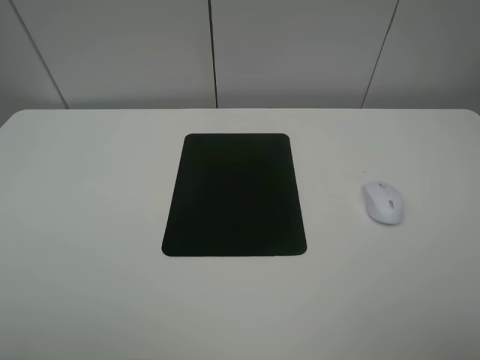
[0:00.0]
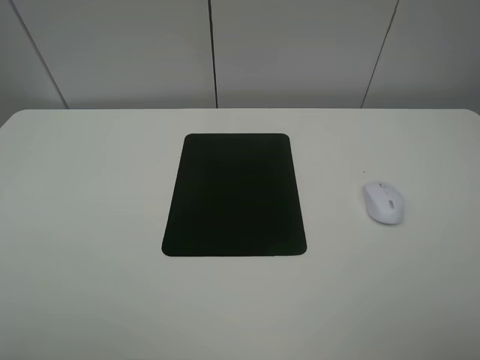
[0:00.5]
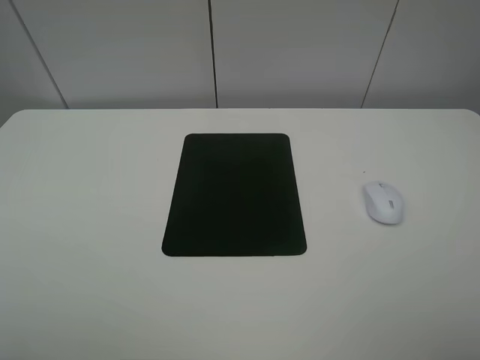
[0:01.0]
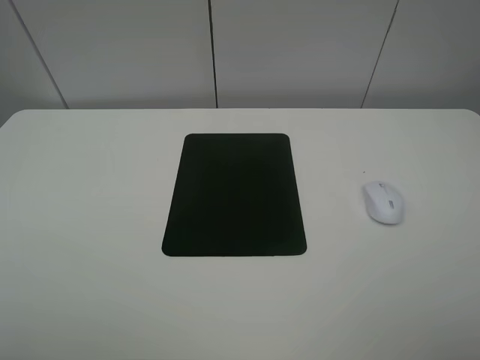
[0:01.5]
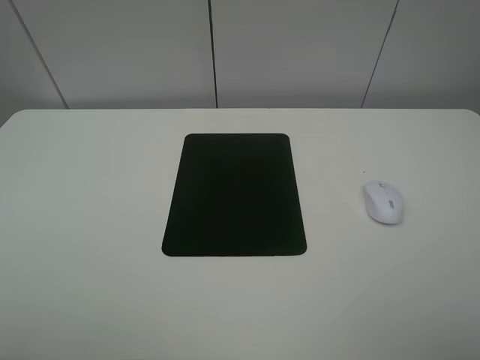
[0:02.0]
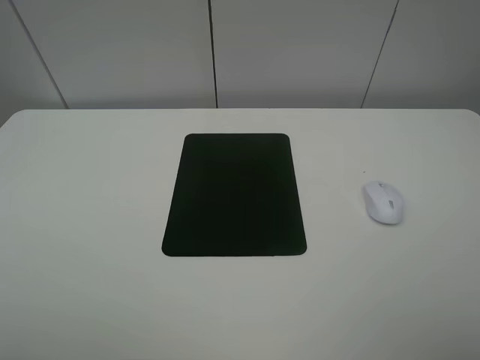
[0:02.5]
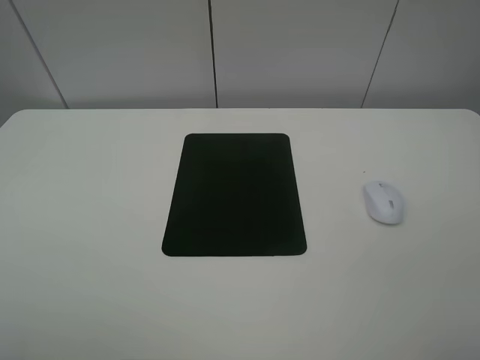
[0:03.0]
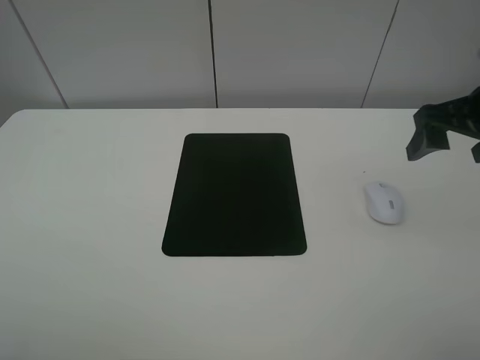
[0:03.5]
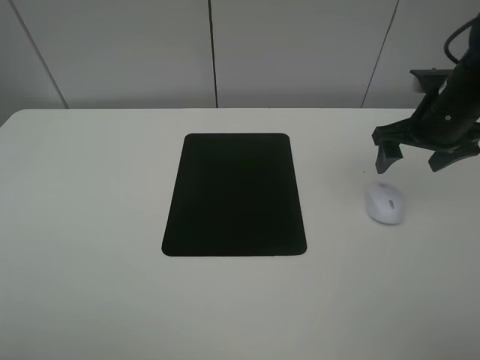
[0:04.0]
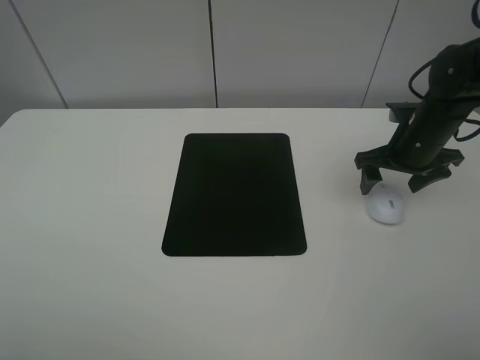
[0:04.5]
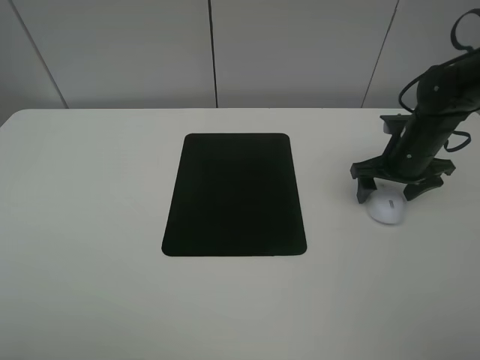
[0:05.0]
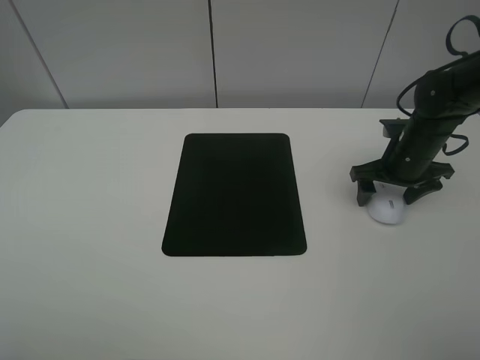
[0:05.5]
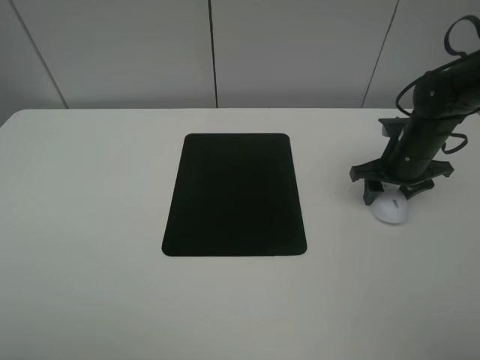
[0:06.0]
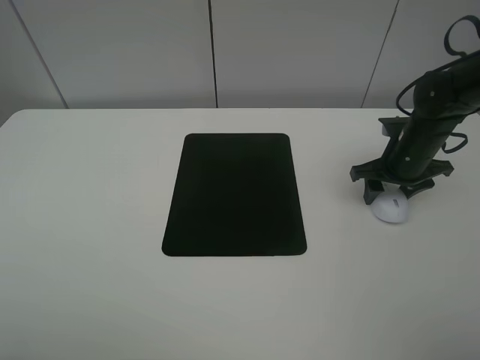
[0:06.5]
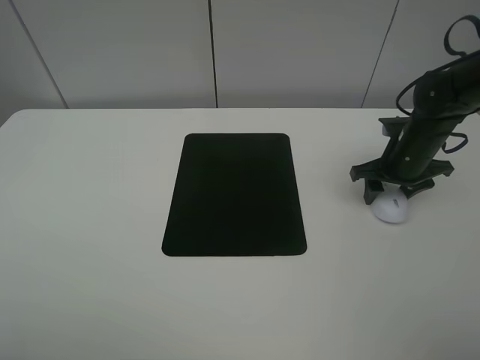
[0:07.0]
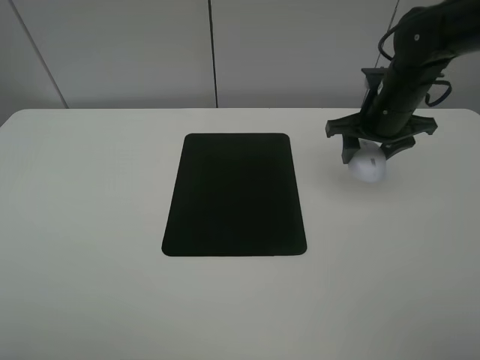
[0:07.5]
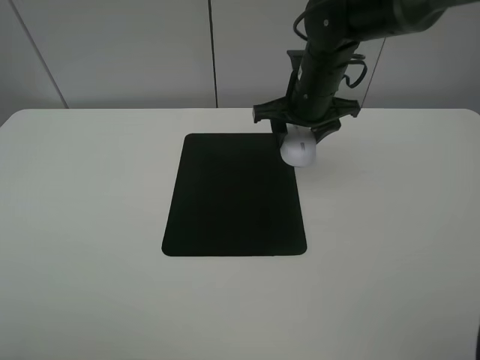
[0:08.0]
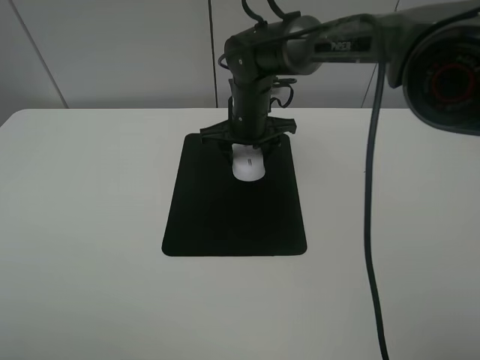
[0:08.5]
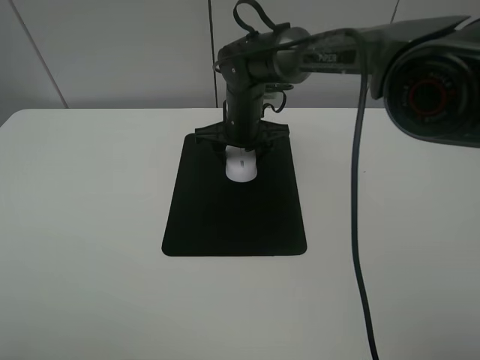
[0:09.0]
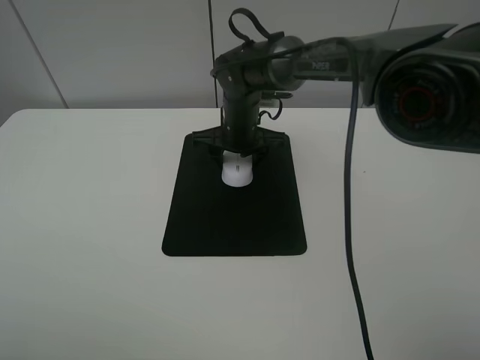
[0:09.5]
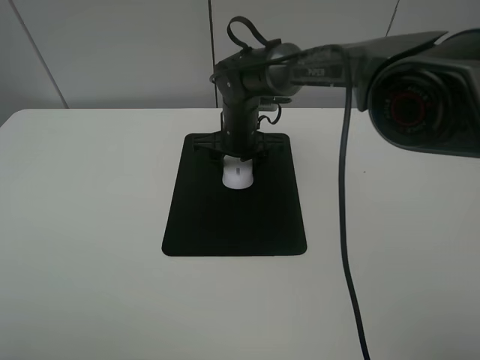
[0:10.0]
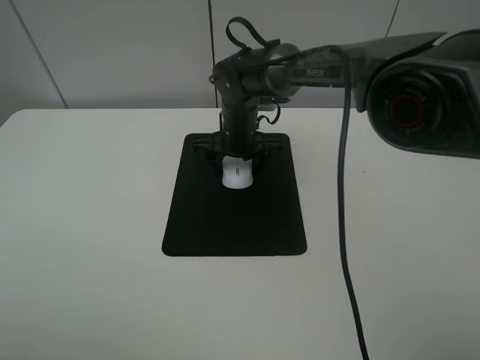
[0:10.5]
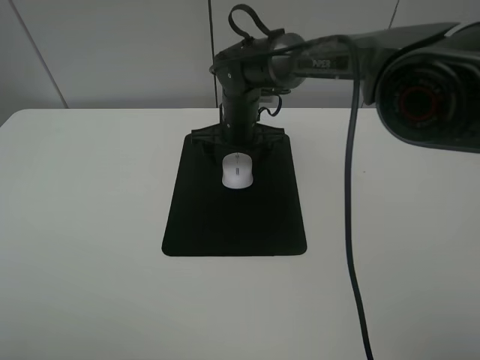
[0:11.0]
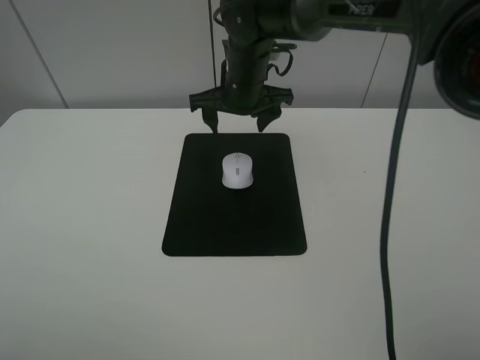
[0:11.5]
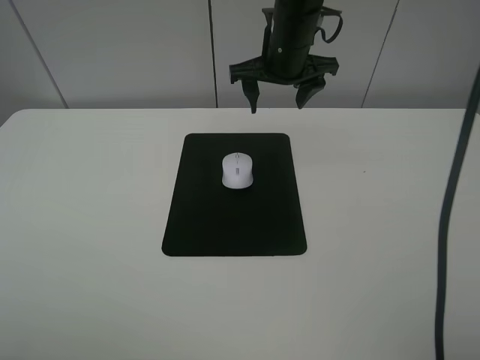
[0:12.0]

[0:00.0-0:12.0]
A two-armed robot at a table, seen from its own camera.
Step, 0:00.0 to 0:06.5: Grasp the mouse with the right gripper.
Step, 0:07.0 to 0:10.5: Place the mouse on the mouse mat with the right gripper.
0:00.0 to 0:02.0: The two grippers keep their place.
0:02.0 to 0:04.0: The right gripper heads forward, covering approximately 35 cm, and opens its fingers.
0:04.0 to 0:06.0: The right gripper shifts about 10 cm downward, and closes up.
0:06.0 to 0:08.0: The right gripper is displaced to the left and upward by some 20 cm.
0:08.0 to 0:10.0: The right gripper is displaced to the left and downward by roughly 15 cm.
0:10.0 to 0:12.0: The right gripper is displaced upward and to the right by approximately 15 cm, and opens up.

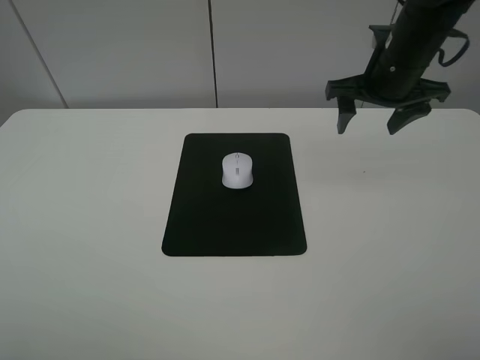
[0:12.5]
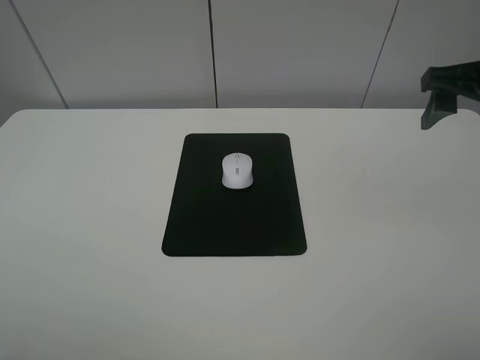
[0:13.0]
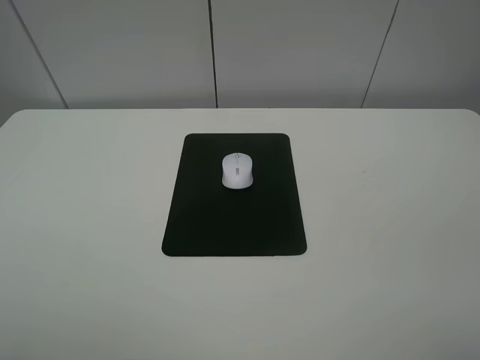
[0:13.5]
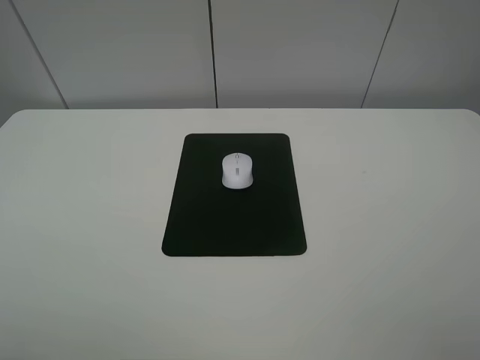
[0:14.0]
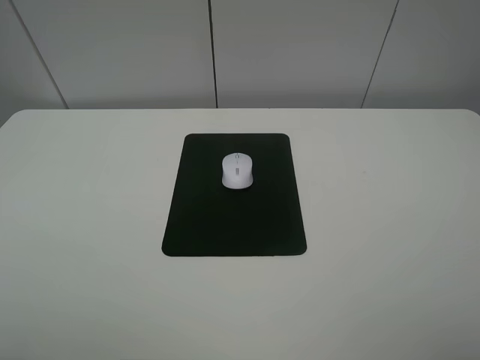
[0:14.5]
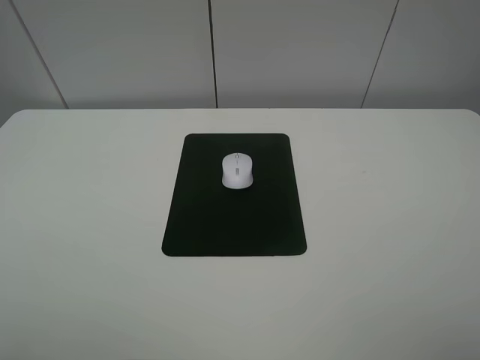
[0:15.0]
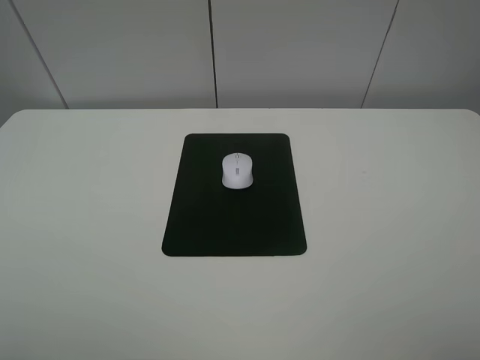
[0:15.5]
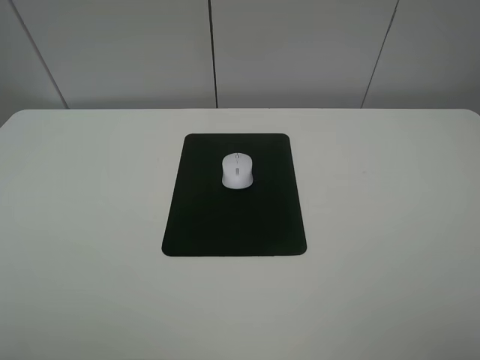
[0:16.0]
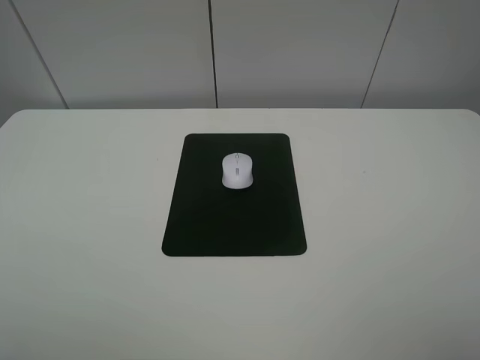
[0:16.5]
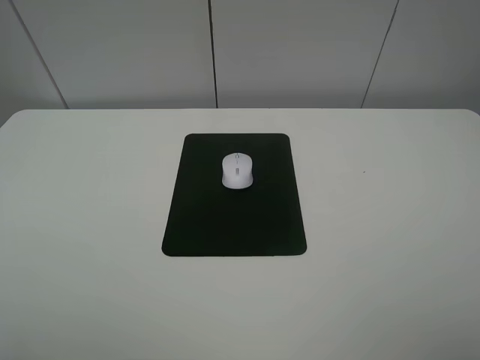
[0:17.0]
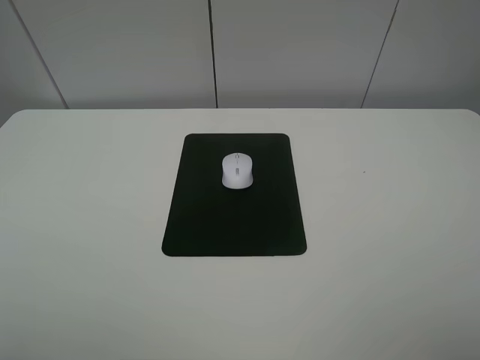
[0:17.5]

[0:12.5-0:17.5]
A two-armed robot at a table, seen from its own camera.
0:12.5 to 0:15.0: The right gripper shifts about 35 cm backward.

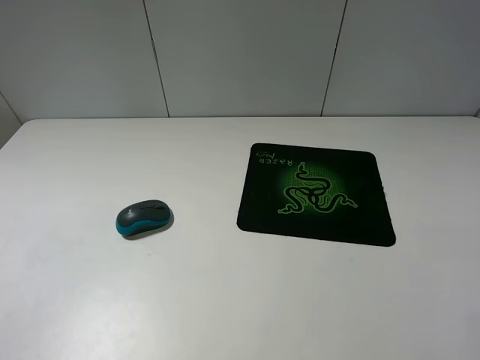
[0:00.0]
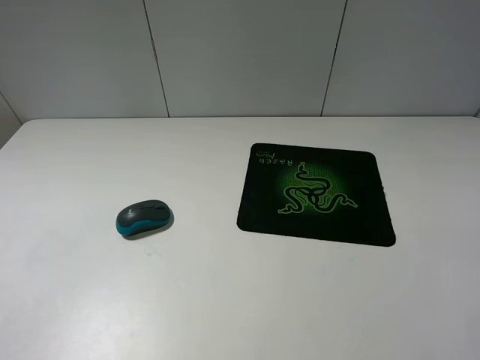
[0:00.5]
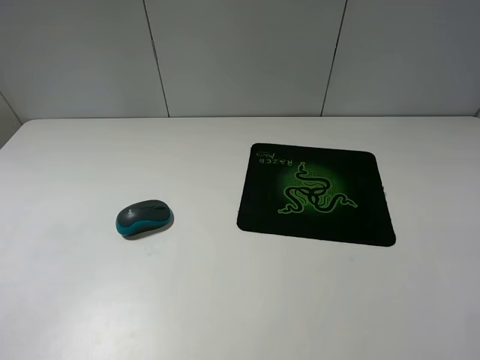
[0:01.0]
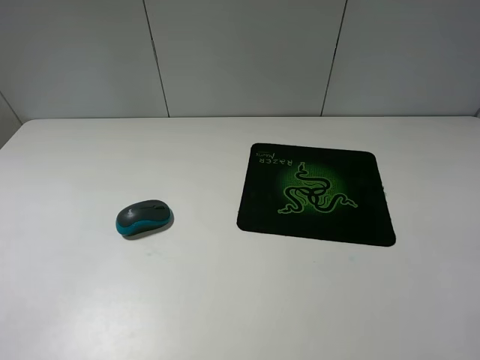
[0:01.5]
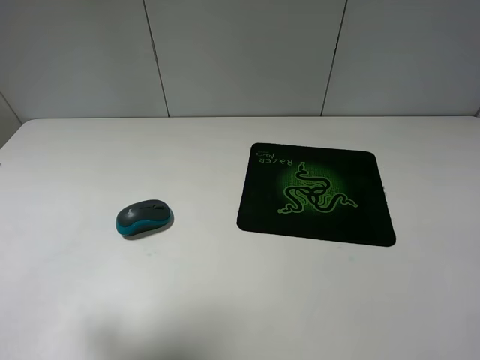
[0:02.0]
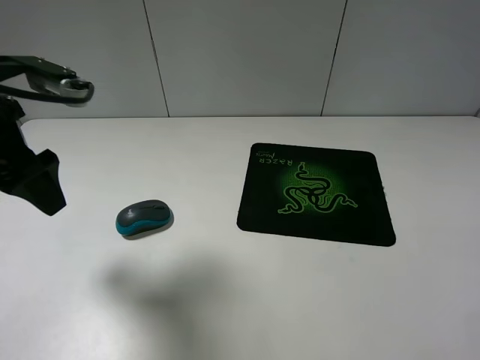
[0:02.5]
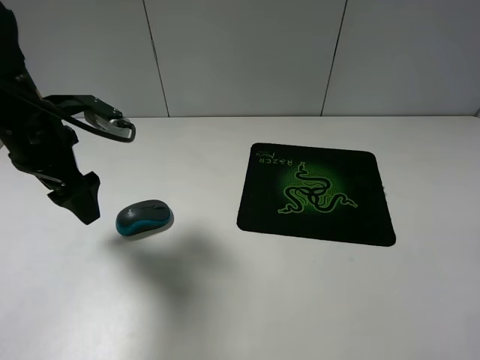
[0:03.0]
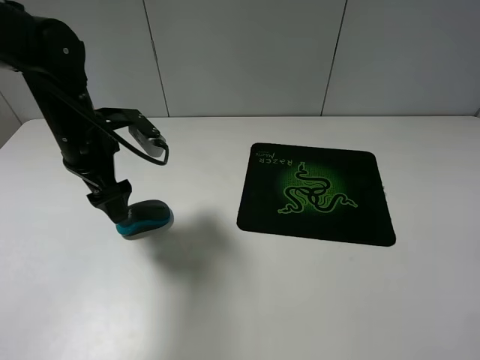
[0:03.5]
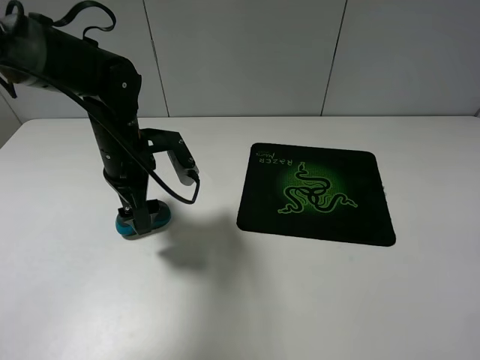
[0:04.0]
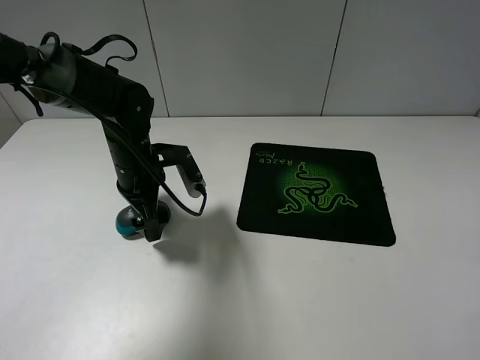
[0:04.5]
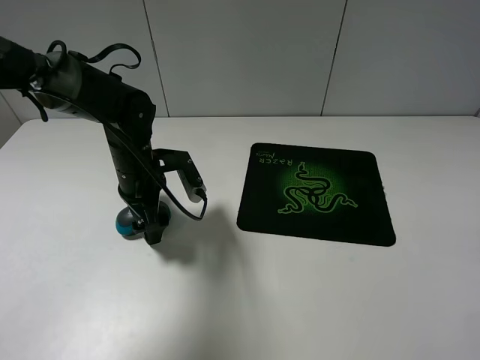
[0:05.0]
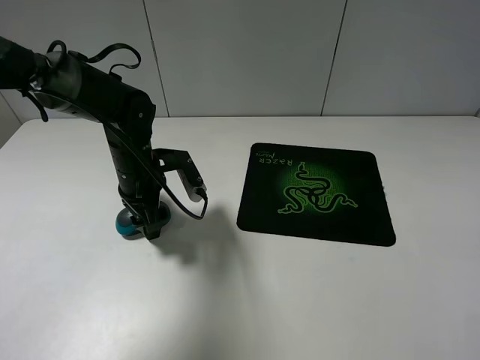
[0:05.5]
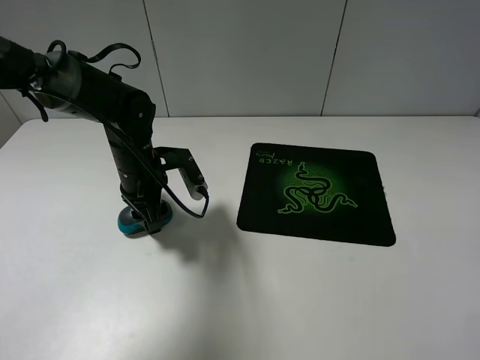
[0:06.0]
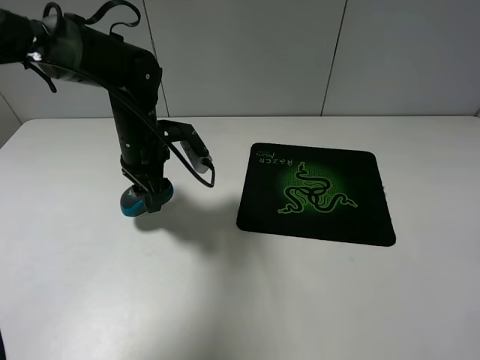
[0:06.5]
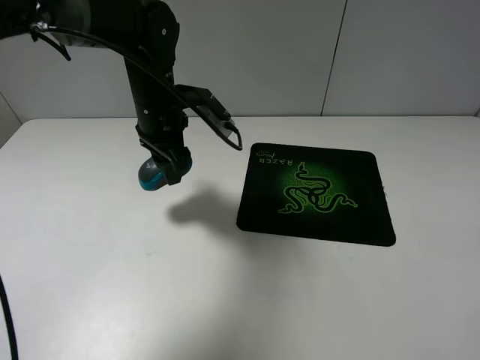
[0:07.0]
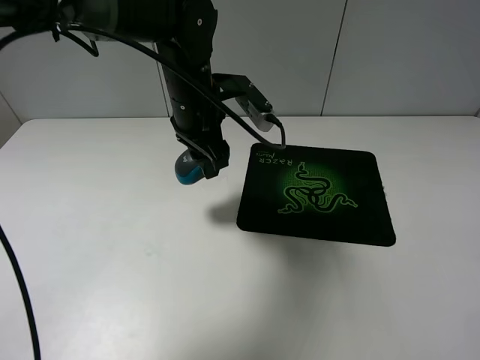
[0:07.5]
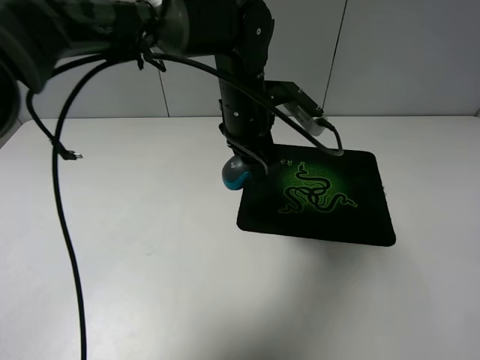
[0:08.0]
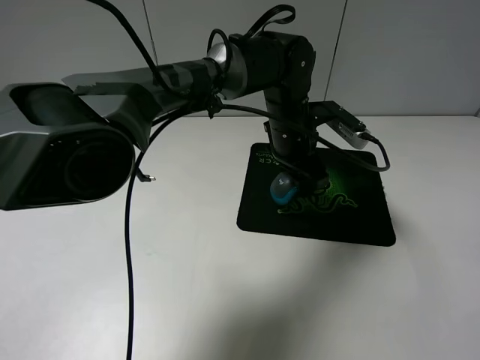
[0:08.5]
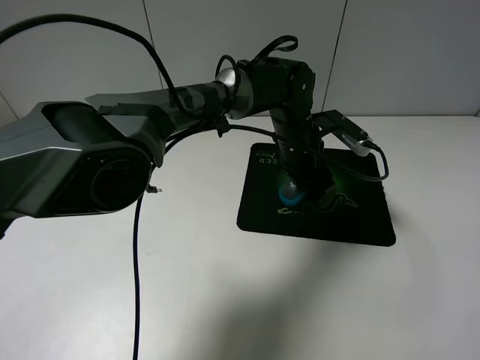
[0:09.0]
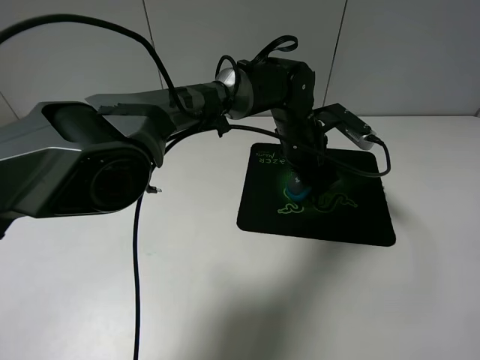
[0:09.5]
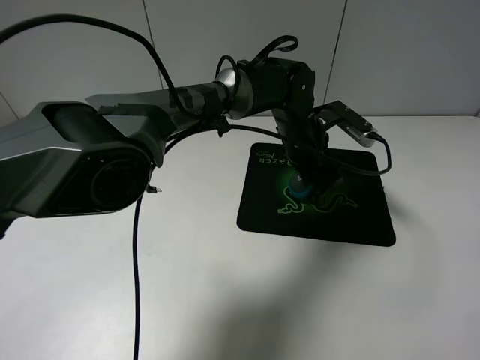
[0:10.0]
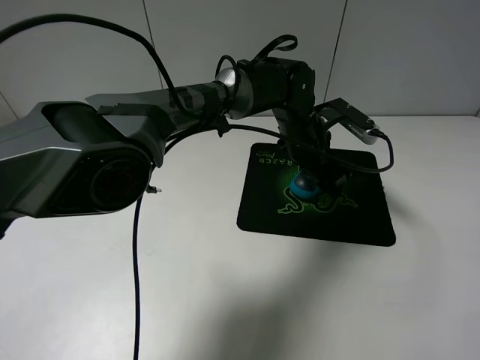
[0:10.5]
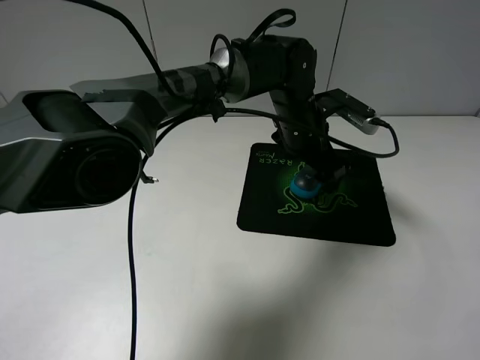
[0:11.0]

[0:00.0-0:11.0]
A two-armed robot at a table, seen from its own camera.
Step, 0:00.0 to 0:05.5: Grasp the mouse with the left gripper.
Step, 0:06.0 to 0:10.5: Place the mouse on the mouse mat with the left gripper.
0:00.0 to 0:02.0: The left gripper shifts roughly 20 cm forward and upward.
0:02.0 to 0:03.5: The left gripper moves downward, forward and to the right, approximately 25 cm.
0:03.5 to 0:05.5: The left gripper goes about 5 cm downward, and closes its fingers.
0:05.5 to 0:07.5: The left gripper is displaced upward and to the right by some 15 cm.
0:07.5 to 0:09.0: The left gripper travels to the right and downward by roughly 15 cm.
0:09.0 to 0:11.0: The left gripper opens its fingers.
